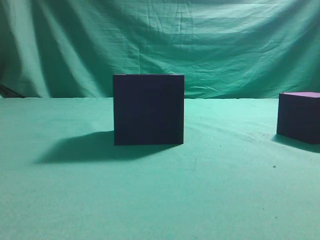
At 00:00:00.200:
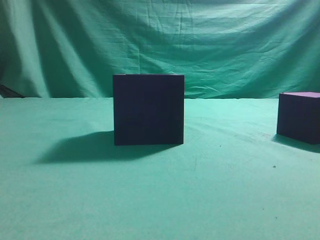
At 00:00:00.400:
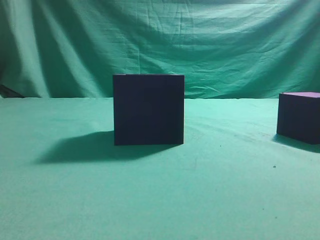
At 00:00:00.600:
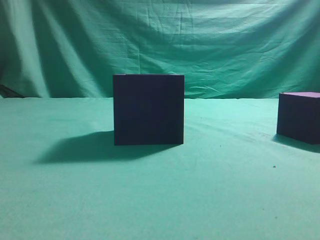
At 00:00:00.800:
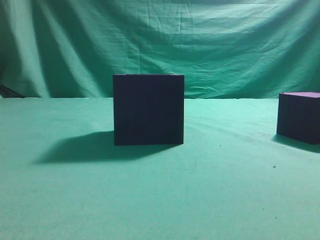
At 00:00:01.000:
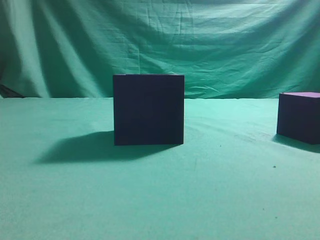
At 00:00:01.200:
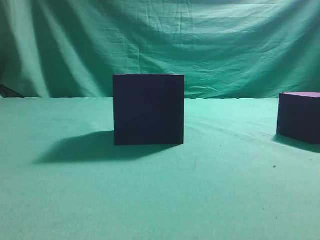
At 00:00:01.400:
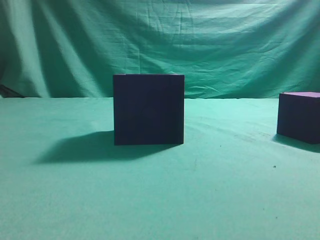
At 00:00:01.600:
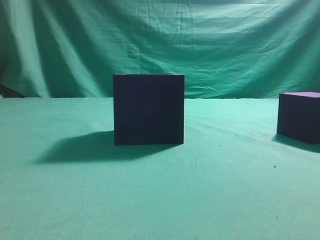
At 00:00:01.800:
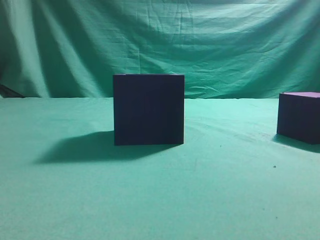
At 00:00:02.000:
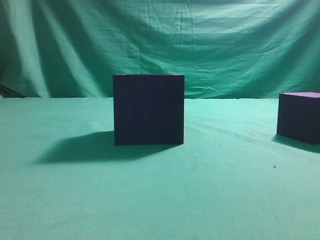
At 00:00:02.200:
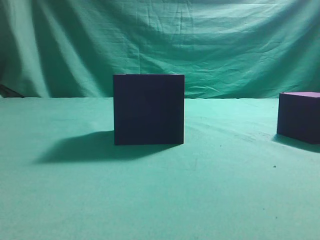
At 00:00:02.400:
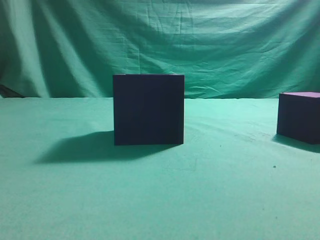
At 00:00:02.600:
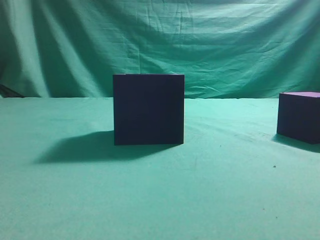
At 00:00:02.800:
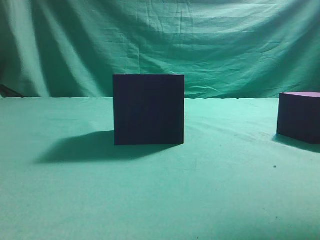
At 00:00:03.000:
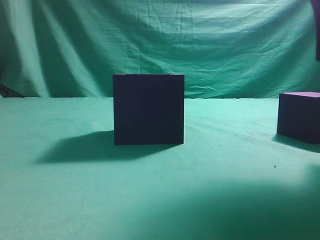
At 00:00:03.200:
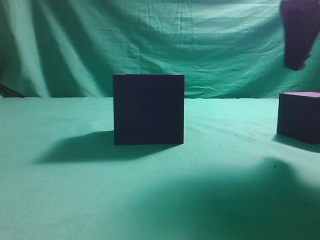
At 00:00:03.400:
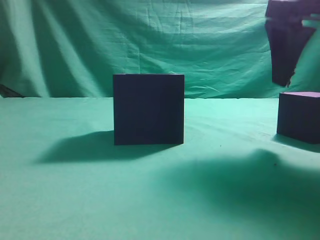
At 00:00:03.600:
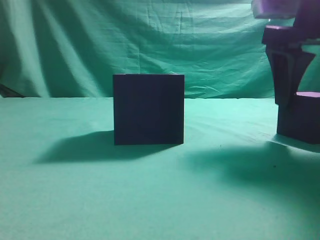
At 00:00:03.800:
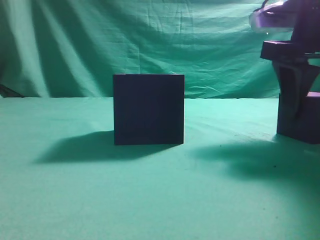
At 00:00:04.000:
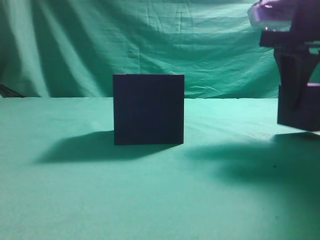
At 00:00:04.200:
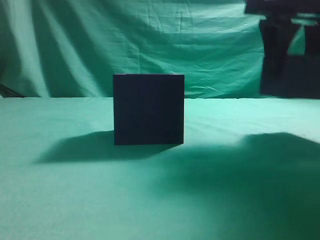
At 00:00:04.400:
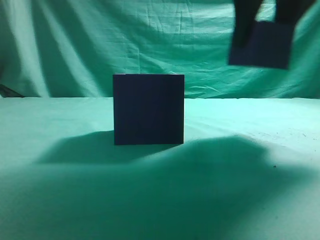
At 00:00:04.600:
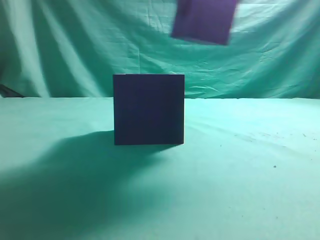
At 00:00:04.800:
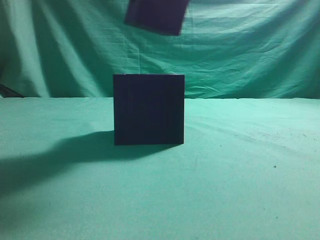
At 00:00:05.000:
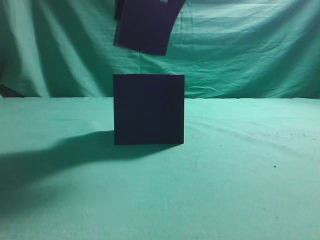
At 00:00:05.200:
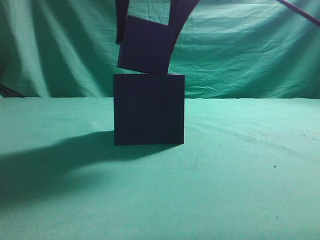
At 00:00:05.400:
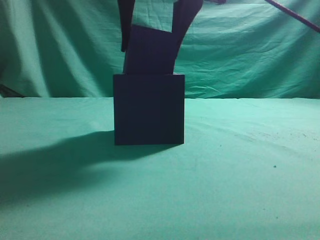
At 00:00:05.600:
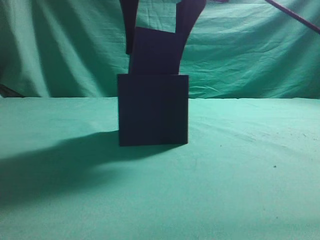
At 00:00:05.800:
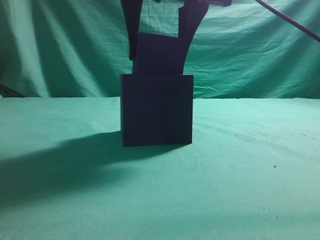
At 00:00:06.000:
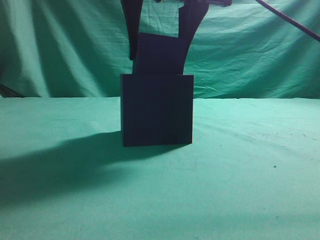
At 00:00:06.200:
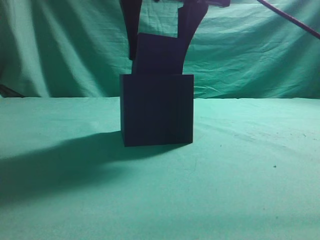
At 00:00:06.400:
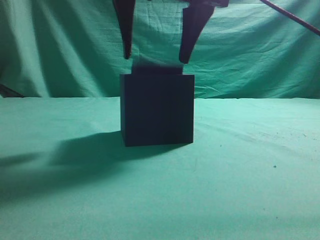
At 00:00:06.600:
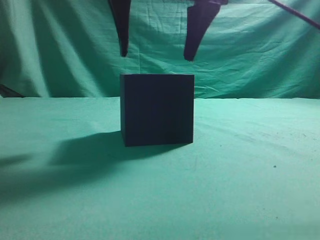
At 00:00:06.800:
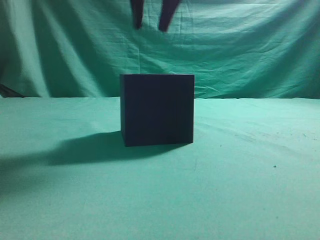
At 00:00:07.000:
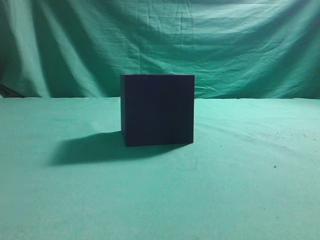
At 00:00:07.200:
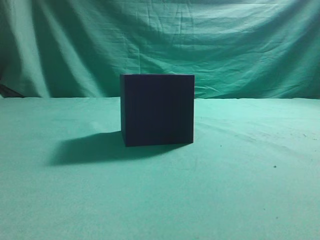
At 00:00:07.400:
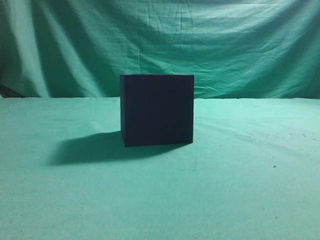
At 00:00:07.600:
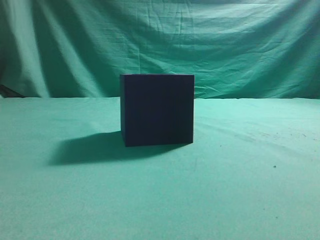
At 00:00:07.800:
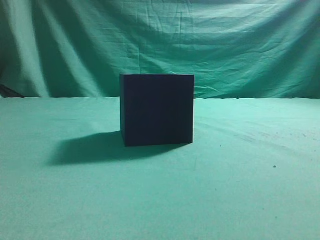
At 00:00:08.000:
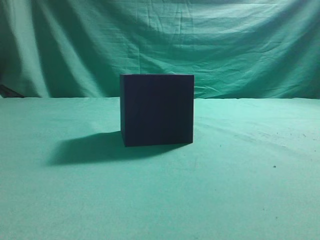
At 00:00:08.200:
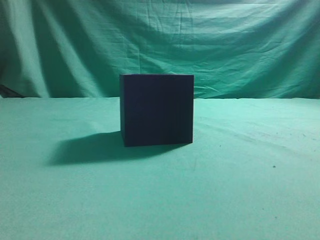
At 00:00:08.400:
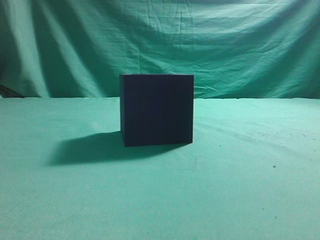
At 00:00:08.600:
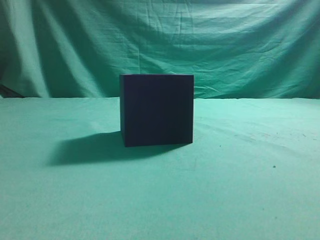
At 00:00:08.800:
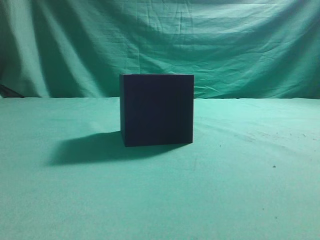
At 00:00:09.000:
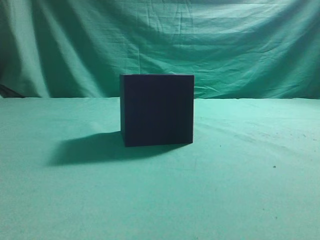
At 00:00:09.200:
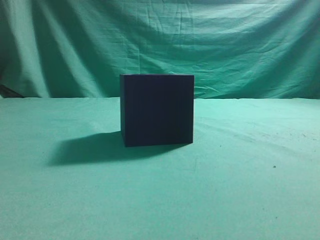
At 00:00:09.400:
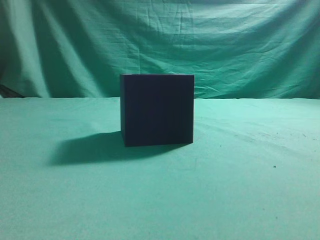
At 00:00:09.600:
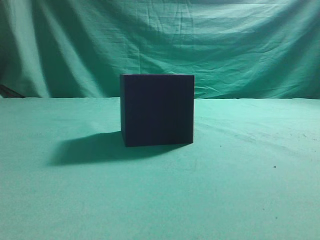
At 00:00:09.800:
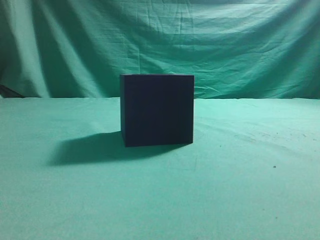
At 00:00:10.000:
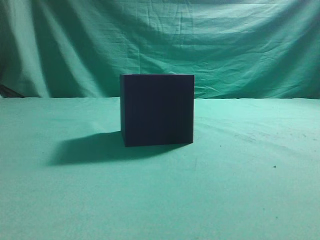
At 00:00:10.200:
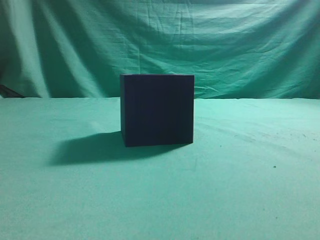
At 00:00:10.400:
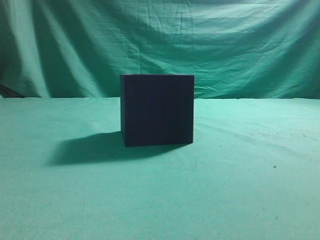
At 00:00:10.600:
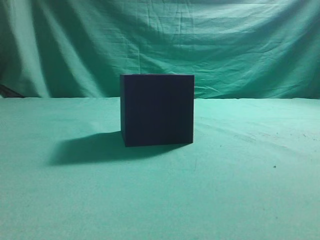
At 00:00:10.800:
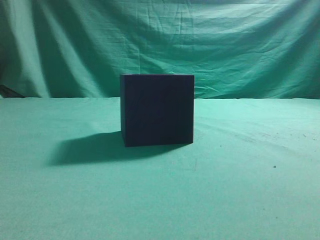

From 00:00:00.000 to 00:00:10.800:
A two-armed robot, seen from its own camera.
Task of the whole recording: pick up the cube block and place it into the cube groove.
Step, from 00:00:00.000 to 00:00:04.200: Grasp the cube.
Step, from 00:00:04.400 to 00:00:06.800: Place cube into the cube-shaped recess.
From 00:00:01.600 to 00:00:03.000: The right gripper is displaced forward and to the left by approximately 20 cm.
From 00:00:03.000 to 00:00:04.600: The right gripper is displaced to the left and upward by roughly 10 cm, and opens up.
From 00:00:04.600 to 00:00:06.200: The right gripper shifts some 10 cm to the left.
From 00:00:06.200 to 00:00:07.800: The right gripper moves backward, to the right and upward, approximately 25 cm, and closes its fingers.

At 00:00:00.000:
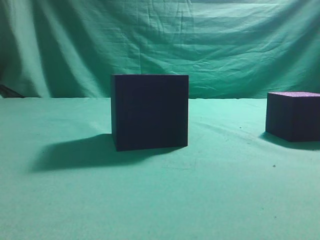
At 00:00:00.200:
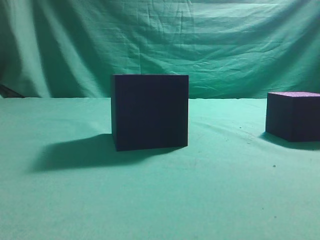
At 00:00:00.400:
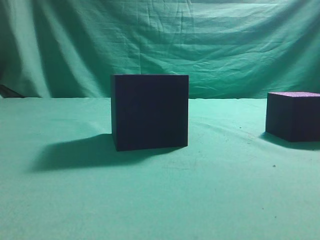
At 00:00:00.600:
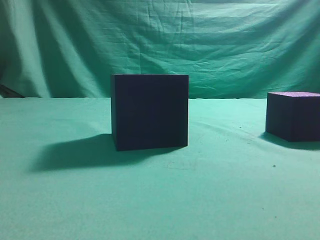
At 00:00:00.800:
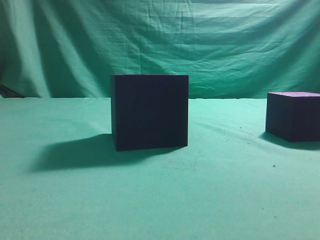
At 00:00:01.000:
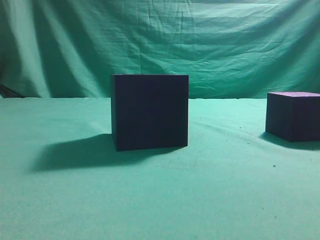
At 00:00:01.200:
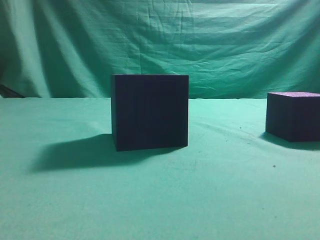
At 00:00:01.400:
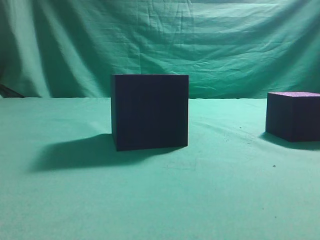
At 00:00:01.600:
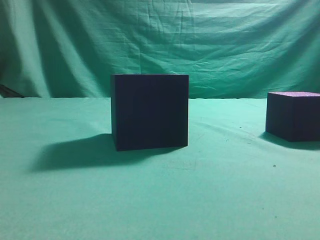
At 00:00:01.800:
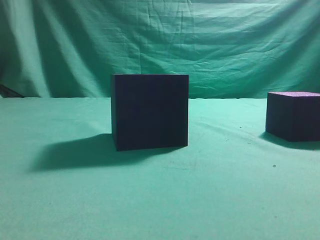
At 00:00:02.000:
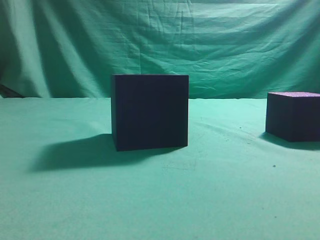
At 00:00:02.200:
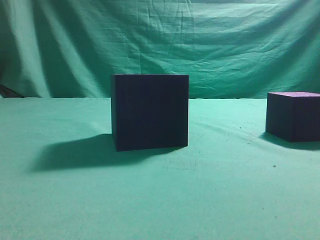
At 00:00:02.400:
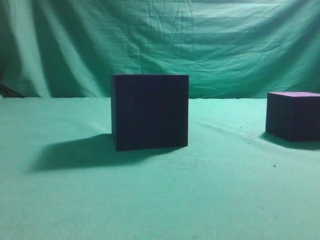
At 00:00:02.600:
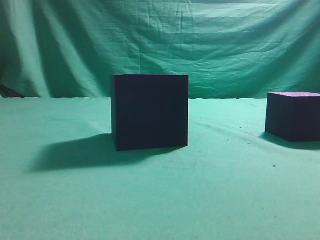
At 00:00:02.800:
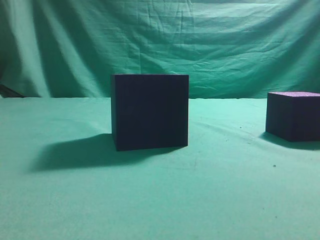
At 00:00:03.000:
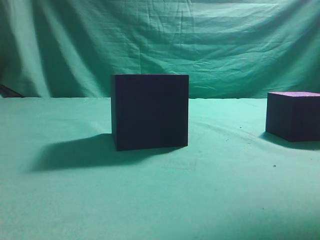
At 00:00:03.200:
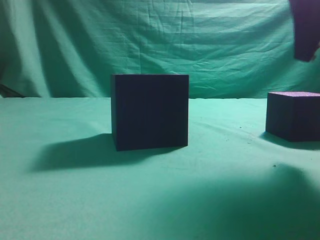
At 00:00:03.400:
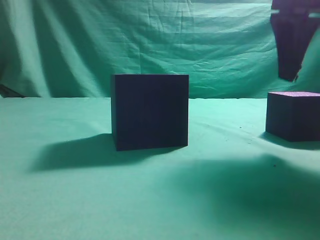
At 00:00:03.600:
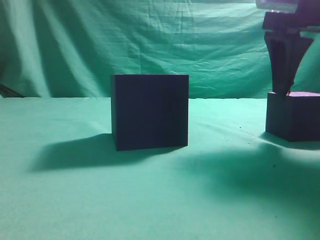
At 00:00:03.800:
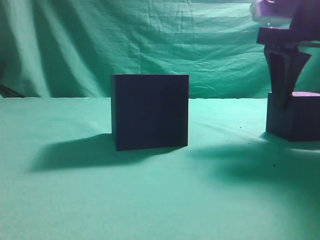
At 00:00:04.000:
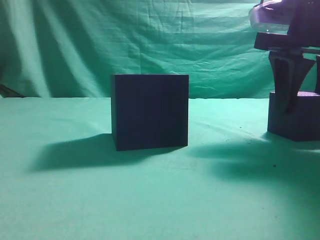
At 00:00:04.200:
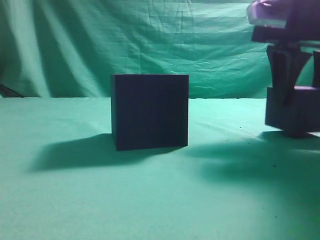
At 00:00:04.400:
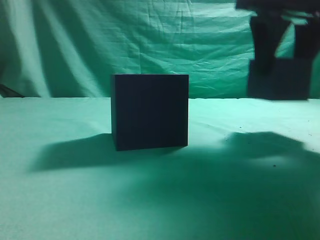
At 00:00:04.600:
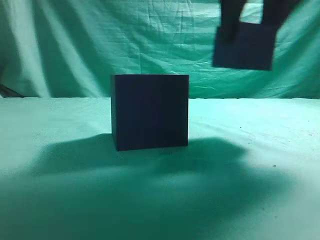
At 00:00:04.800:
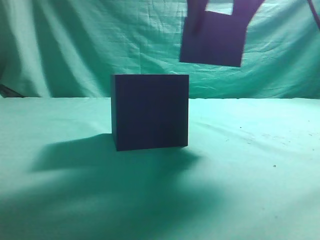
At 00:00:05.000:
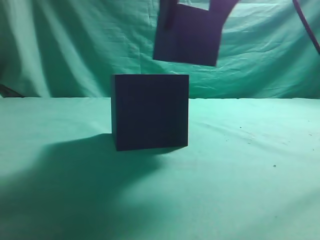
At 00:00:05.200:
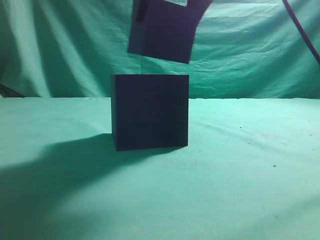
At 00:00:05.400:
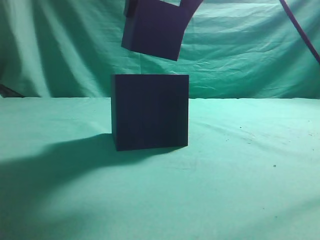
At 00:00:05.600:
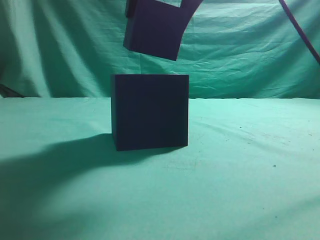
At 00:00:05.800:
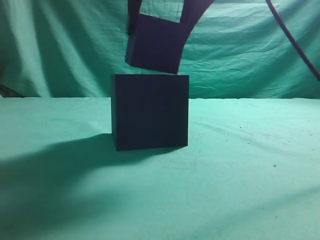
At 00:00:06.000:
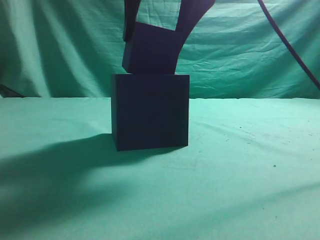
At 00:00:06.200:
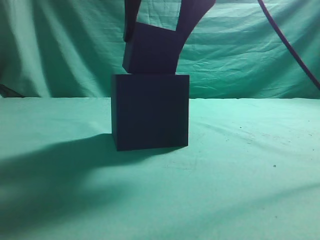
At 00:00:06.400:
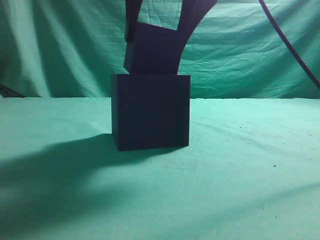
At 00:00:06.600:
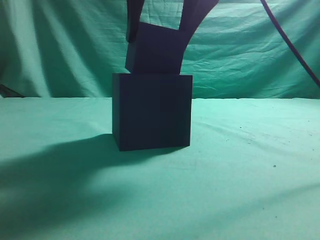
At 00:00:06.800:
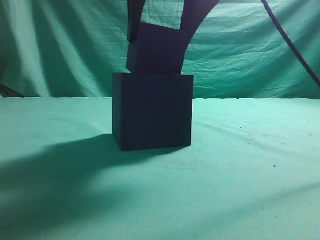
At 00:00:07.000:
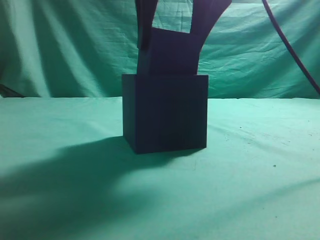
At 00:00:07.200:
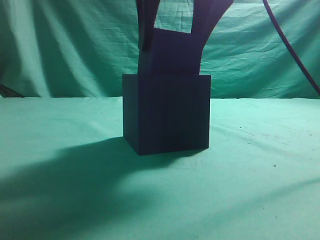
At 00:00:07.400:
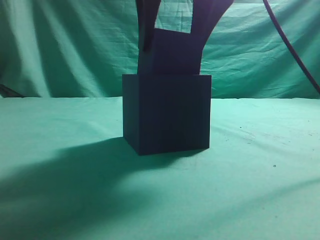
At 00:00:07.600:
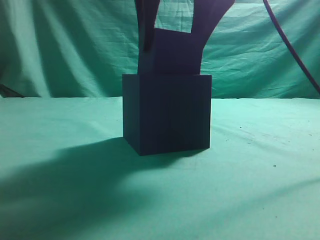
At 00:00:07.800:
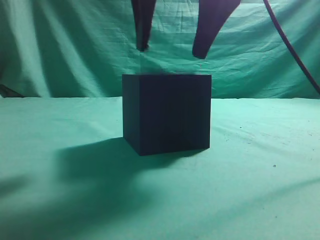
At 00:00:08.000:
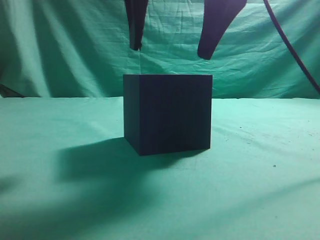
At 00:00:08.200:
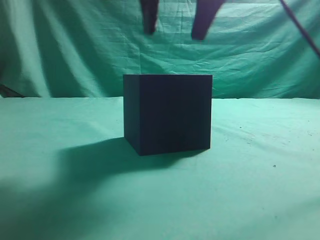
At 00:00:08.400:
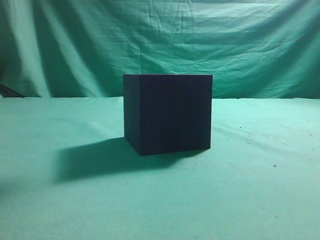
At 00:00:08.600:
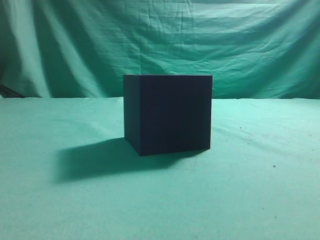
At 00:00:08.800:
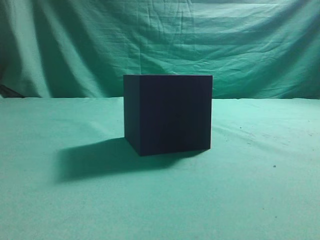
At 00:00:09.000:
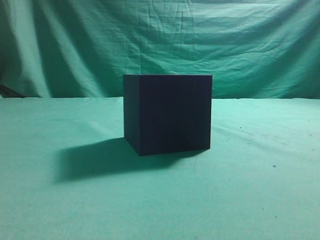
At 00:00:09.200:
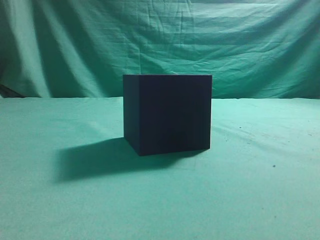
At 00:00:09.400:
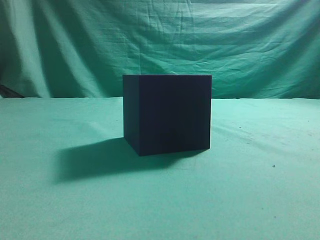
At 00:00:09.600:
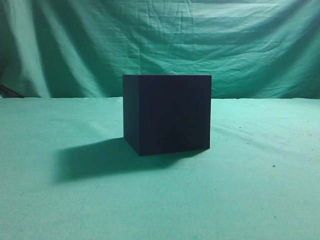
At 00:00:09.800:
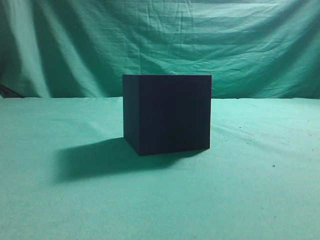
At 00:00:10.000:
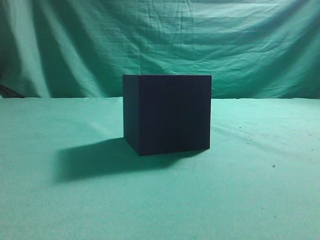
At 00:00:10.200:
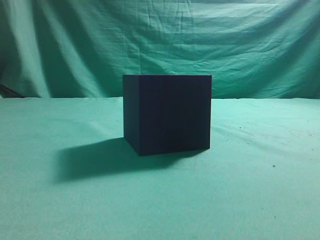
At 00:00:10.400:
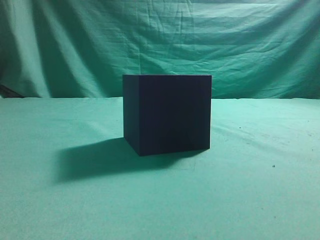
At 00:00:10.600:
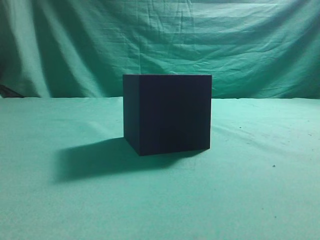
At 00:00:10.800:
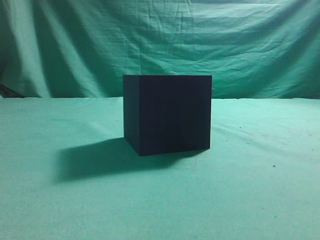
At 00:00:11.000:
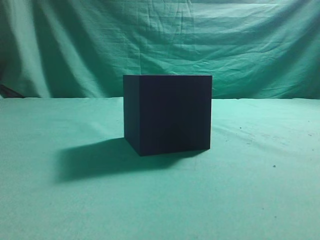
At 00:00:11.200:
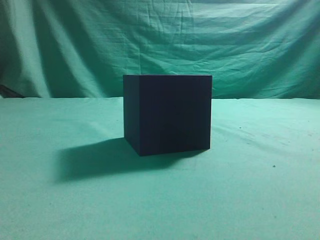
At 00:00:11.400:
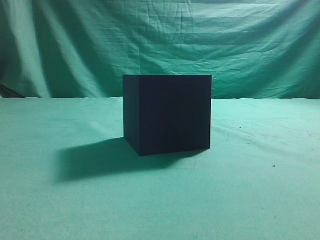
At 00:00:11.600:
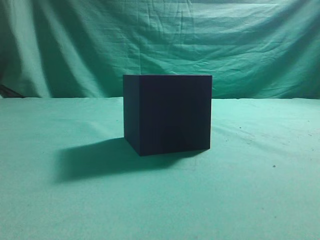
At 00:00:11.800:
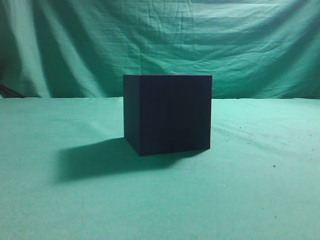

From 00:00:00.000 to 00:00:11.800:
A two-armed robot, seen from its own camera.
Task of the whole recording: pick up the cube block and place it into the cube groove.
Step, from 00:00:00.000 to 00:00:04.400: Grasp the cube.
Step, from 00:00:04.600 to 00:00:08.000: Place cube into the cube-shaped recess.
From 00:00:01.400 to 00:00:03.000: The right gripper goes approximately 20 cm forward and upward.
From 00:00:03.000 to 00:00:04.400: The right gripper is displaced forward by approximately 10 cm, and opens its fingers.
From 00:00:04.400 to 00:00:06.000: The right gripper travels to the left by some 15 cm.
From 00:00:07.400 to 00:00:08.800: The right gripper goes some 20 cm upward and to the right, and closes its fingers.
